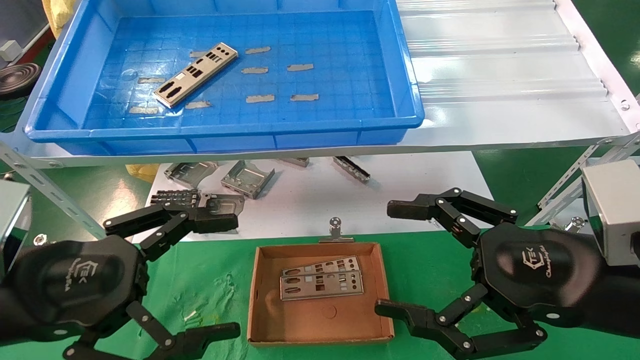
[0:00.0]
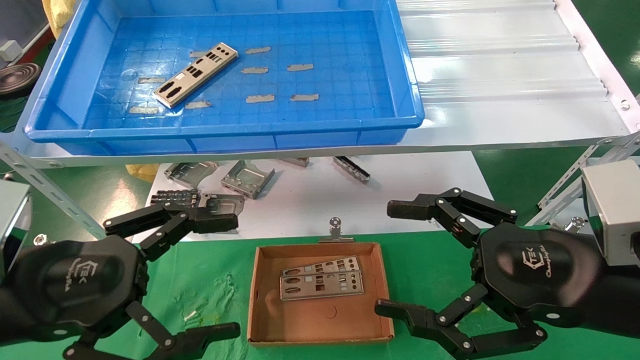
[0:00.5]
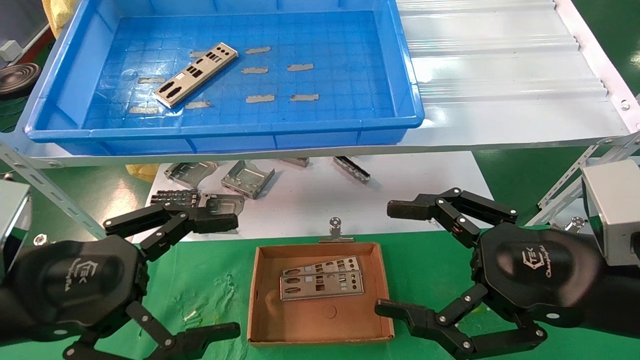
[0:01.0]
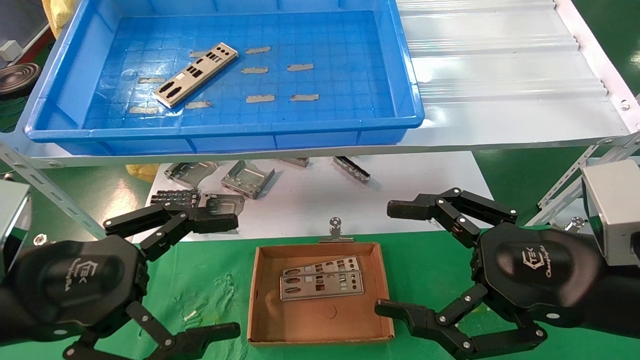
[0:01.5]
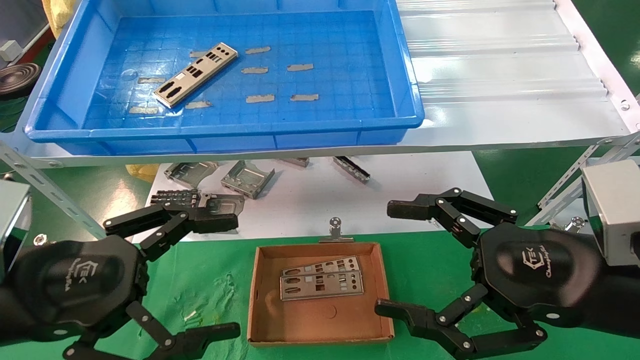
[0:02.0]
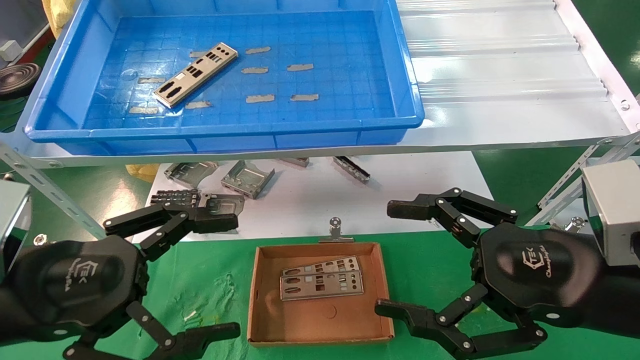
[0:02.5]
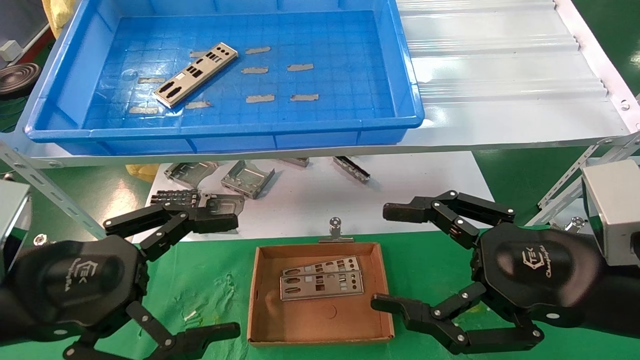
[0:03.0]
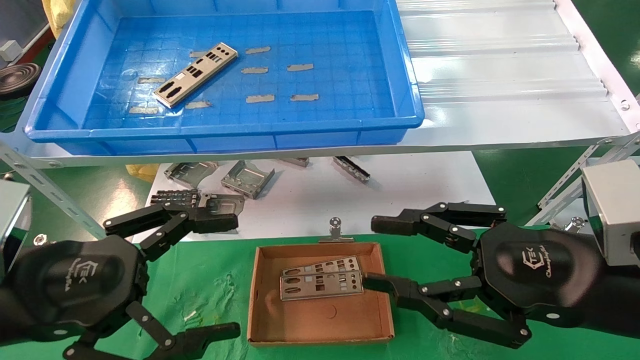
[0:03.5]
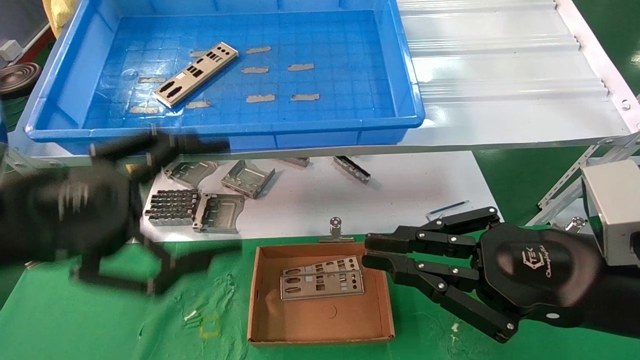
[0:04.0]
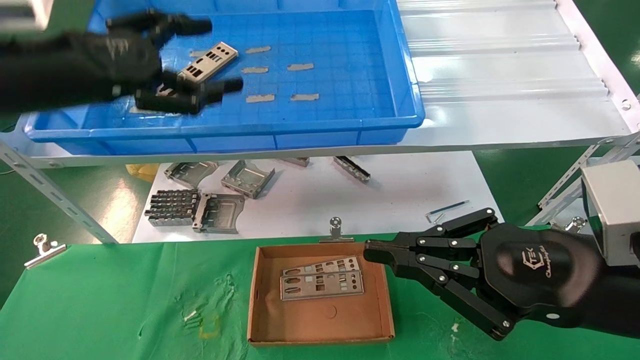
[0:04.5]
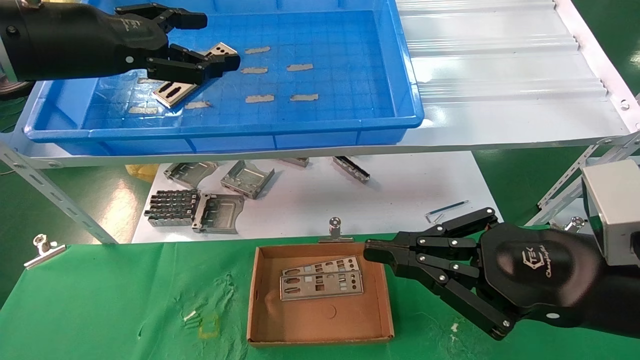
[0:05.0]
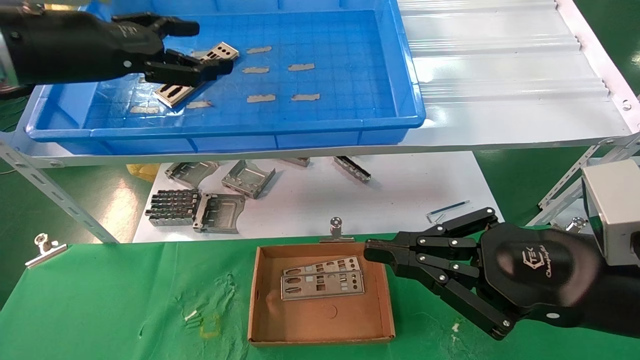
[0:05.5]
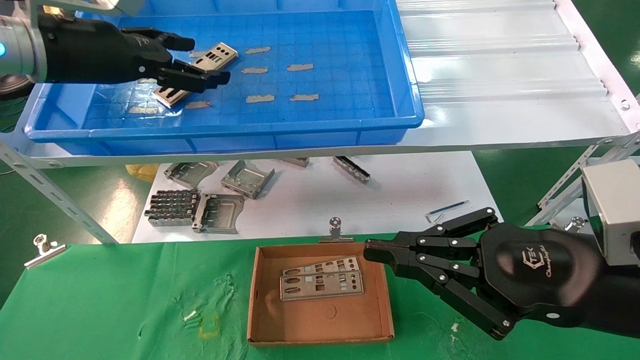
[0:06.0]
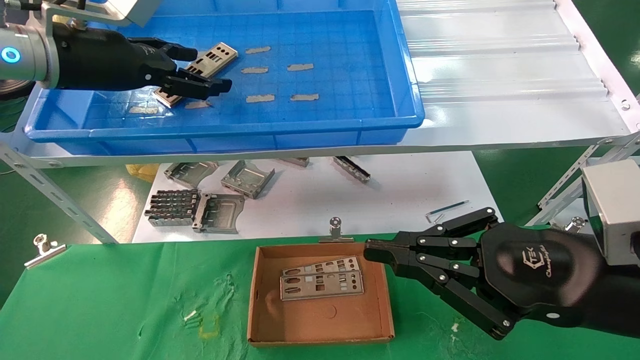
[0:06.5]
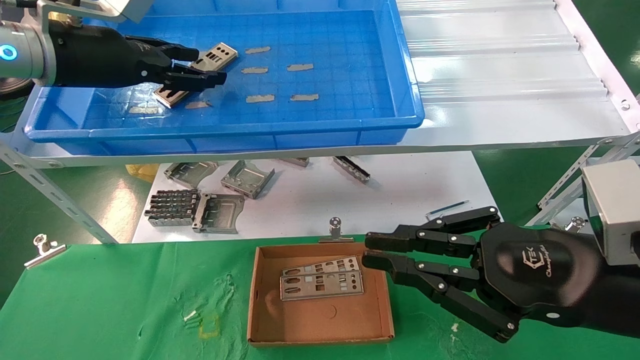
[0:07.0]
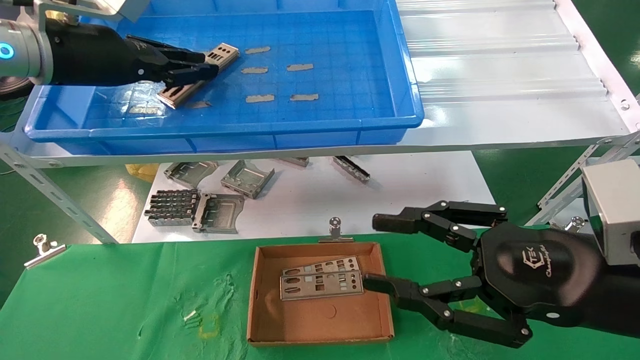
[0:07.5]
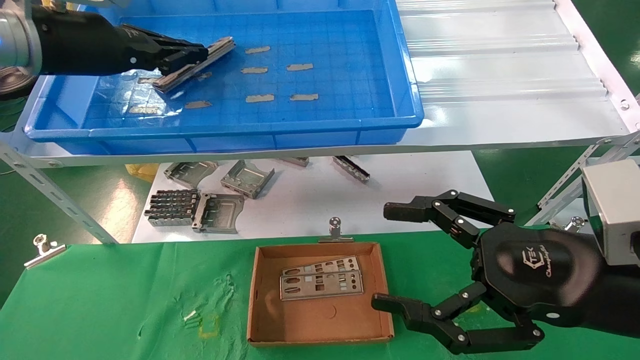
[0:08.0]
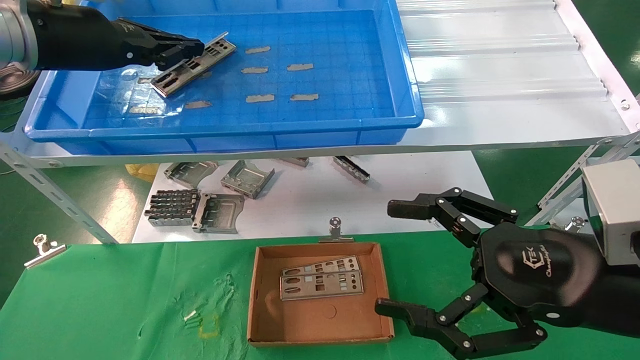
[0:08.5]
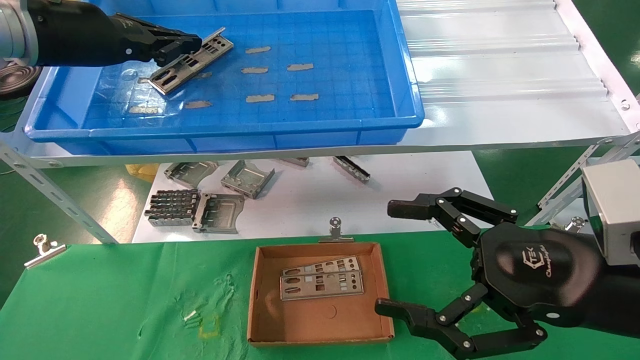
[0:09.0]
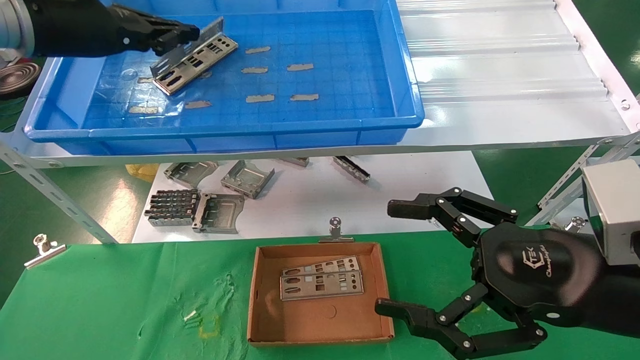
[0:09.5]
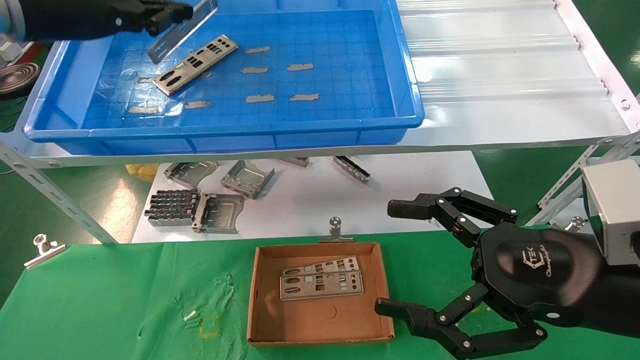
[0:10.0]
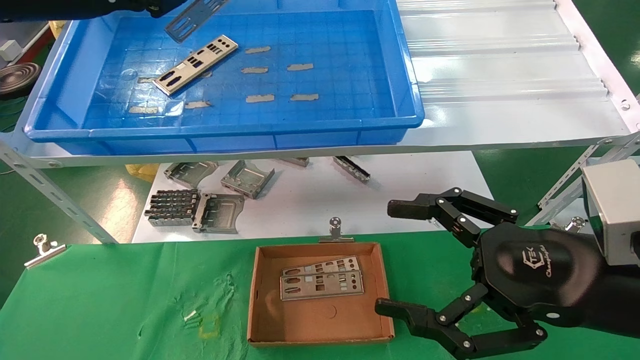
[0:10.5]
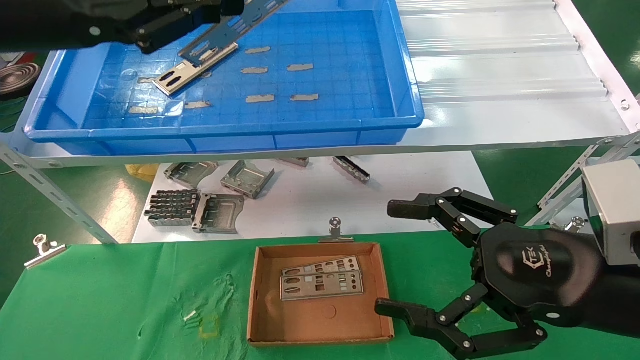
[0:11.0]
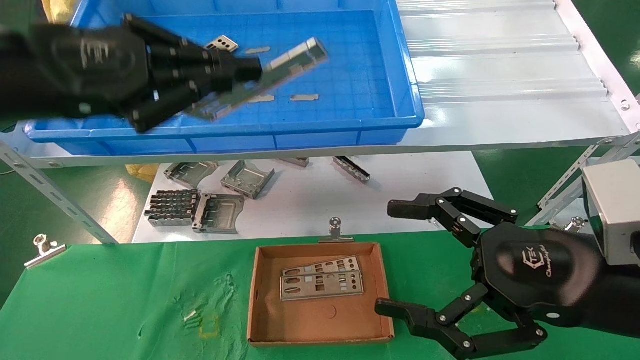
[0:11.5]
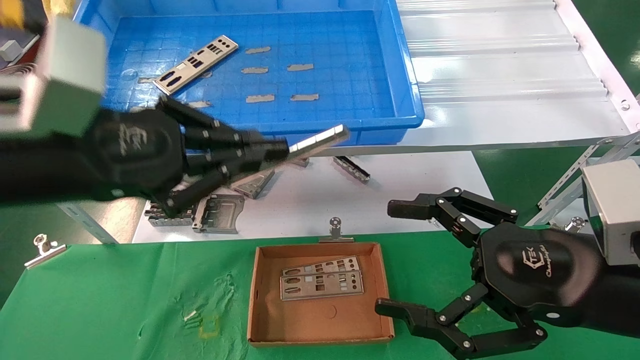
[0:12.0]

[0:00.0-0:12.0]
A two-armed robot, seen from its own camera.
Task of the whole recording: pick up the parts on the tray and put them in the cardboard box.
Step, 0:04.5 to 0:08.5: Pick up the IO bracket from the container box.
0:00.0 to 0:02.0: Both grippers stay put.
0:02.0 to 0:04.0: The right gripper closes up. The left gripper travels upward by about 5 cm.
0:04.0 to 0:06.0: The left gripper moves forward and upward, about 20 cm.
0:06.0 to 0:08.0: The right gripper opens its fingers. The left gripper closes.
0:08.0 to 0:10.0: There are only small adjustments of the grippers.
0:10.0 to 0:12.0: The left gripper heads backward, downward and to the right, covering roughly 20 cm.

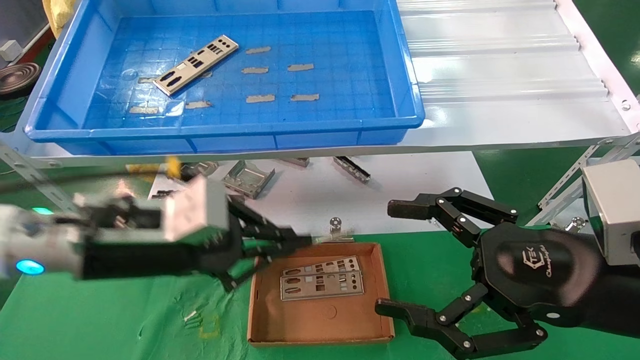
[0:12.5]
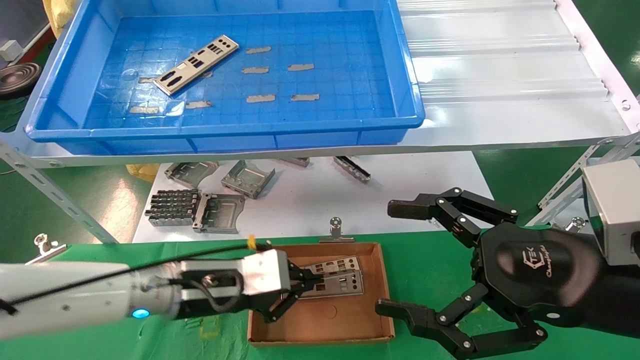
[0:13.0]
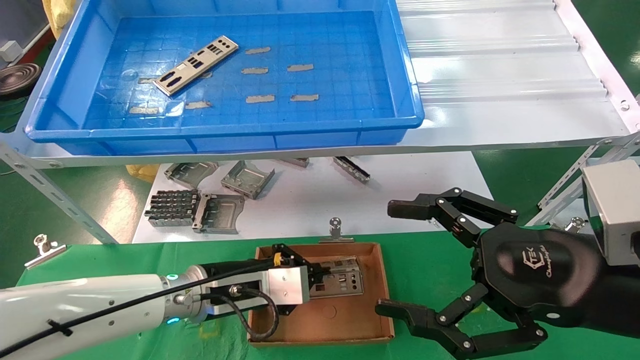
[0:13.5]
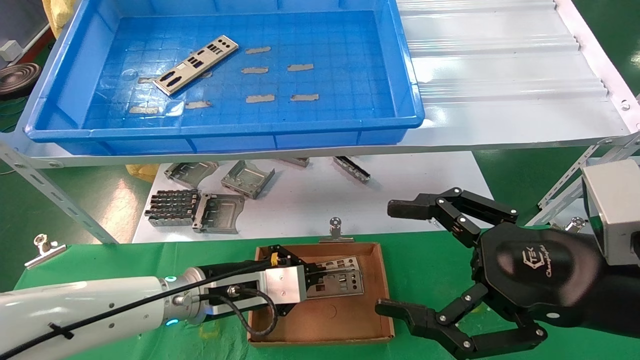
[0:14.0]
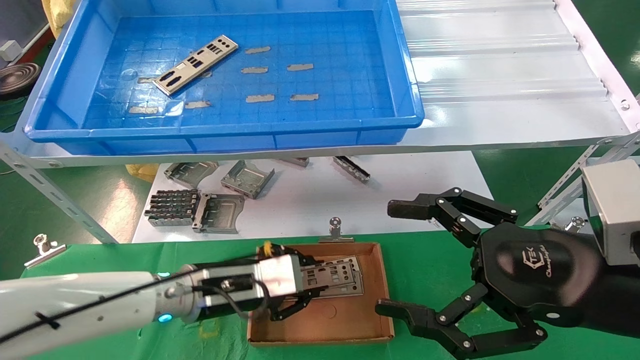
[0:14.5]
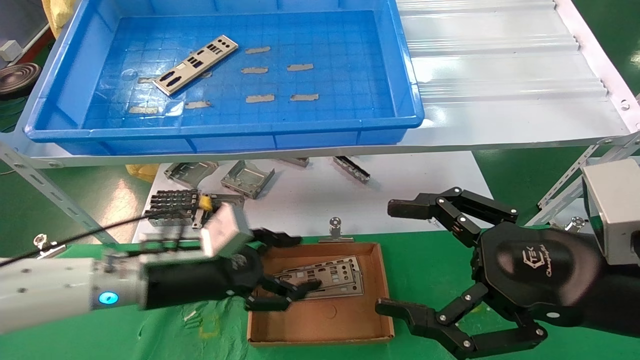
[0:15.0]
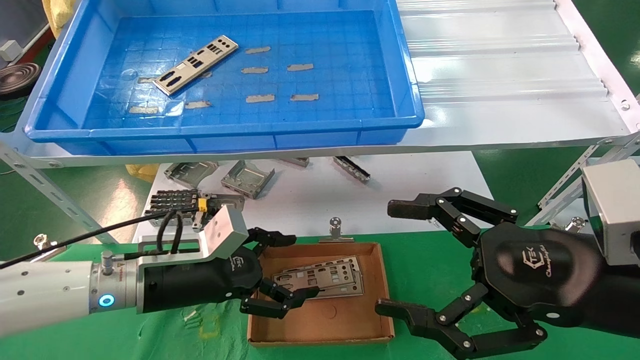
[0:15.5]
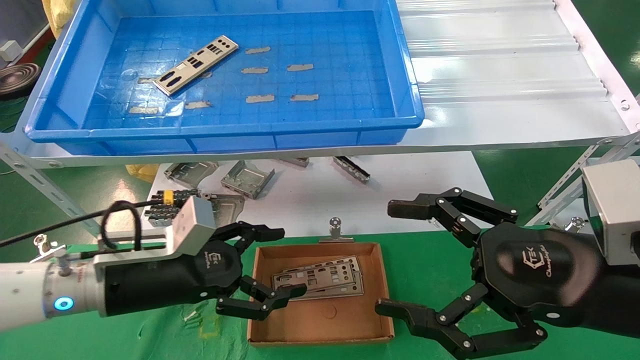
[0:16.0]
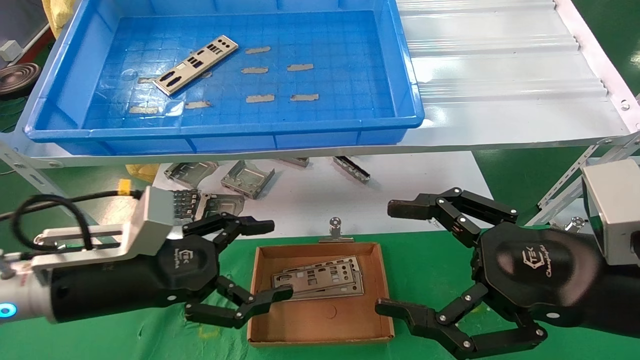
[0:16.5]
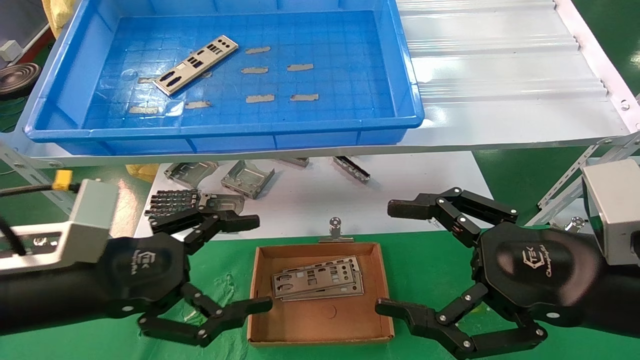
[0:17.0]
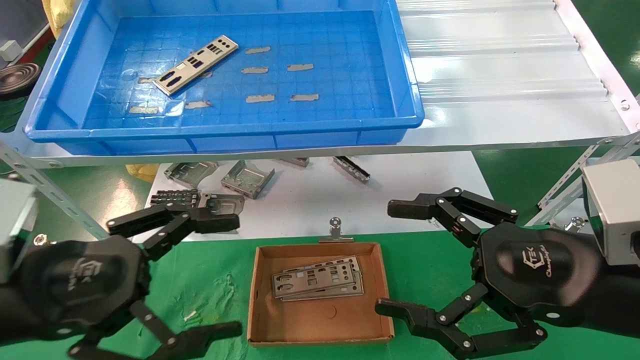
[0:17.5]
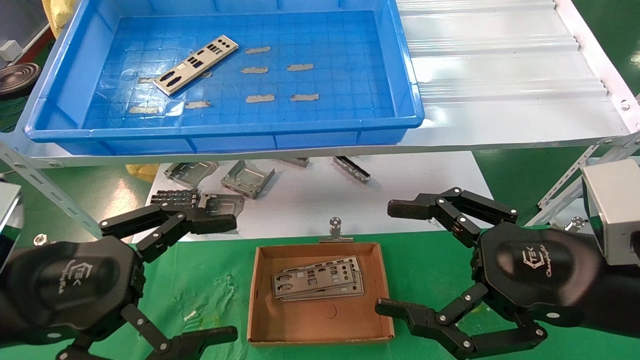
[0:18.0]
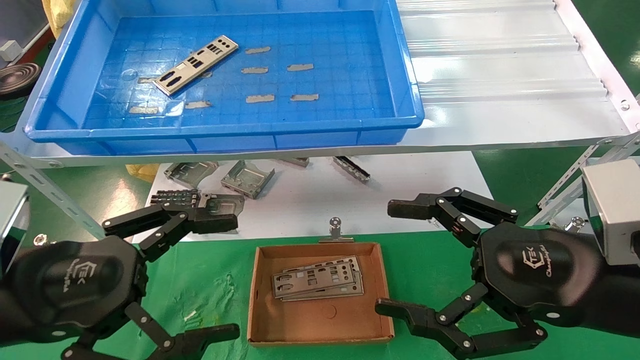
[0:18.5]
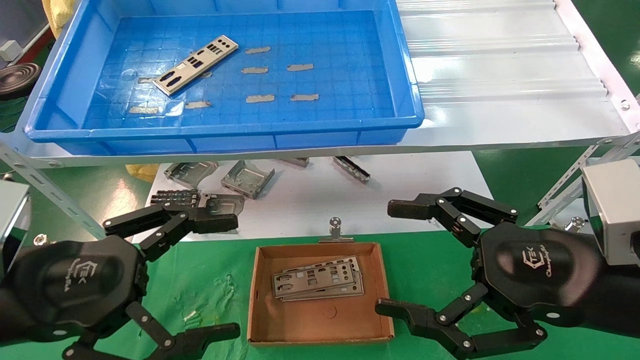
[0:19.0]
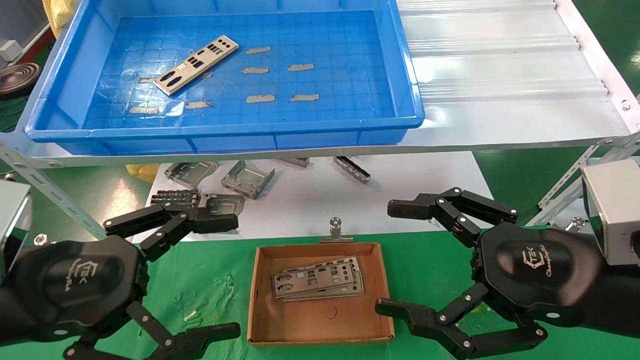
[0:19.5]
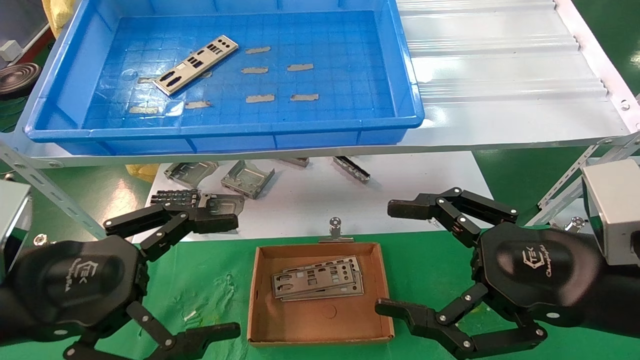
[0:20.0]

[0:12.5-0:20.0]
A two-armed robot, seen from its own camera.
Task of the whole recording: pick up the parts on the tray and put them in the cardboard box.
0:12.5 to 0:14.5: The left gripper moves downward and forward, approximately 15 cm.
0:14.5 to 0:16.5: The left gripper is displaced to the left, backward and upward by about 15 cm, and opens.
0:16.5 to 0:18.0: The left gripper shifts approximately 10 cm backward.
0:18.0 to 0:20.0: Both grippers stay about where they are.
